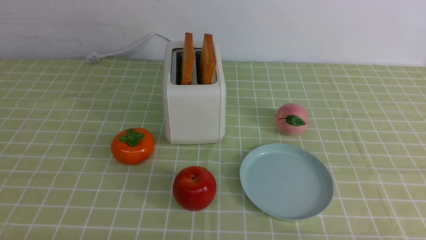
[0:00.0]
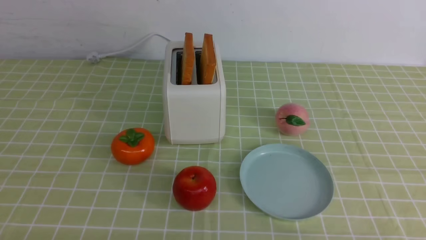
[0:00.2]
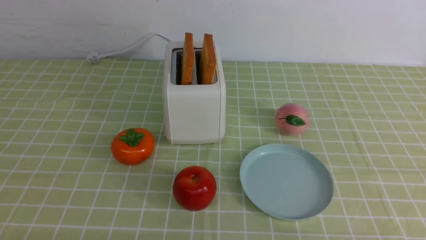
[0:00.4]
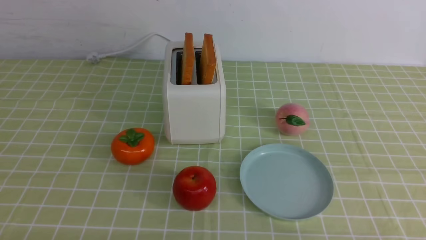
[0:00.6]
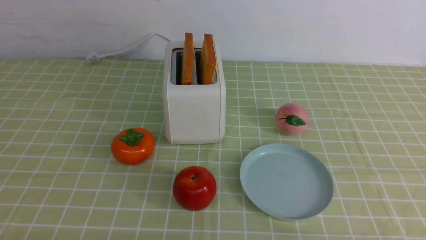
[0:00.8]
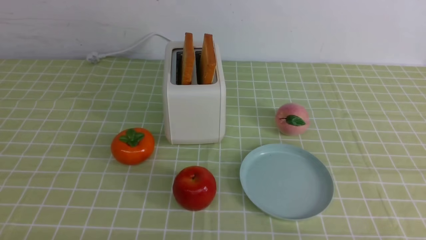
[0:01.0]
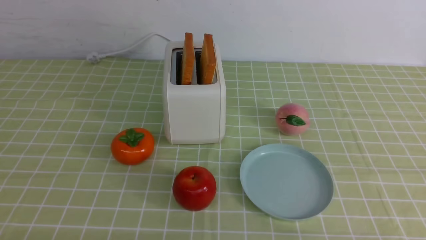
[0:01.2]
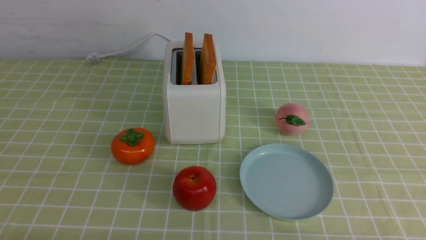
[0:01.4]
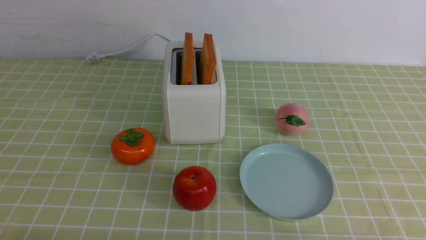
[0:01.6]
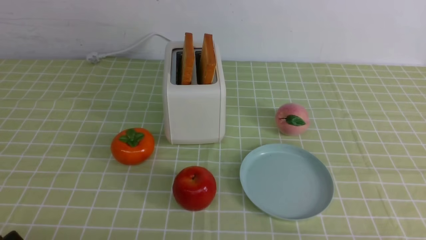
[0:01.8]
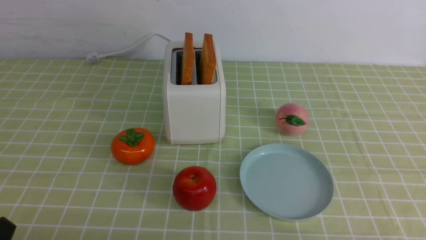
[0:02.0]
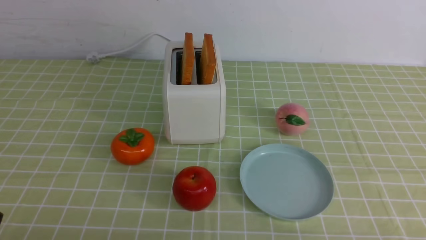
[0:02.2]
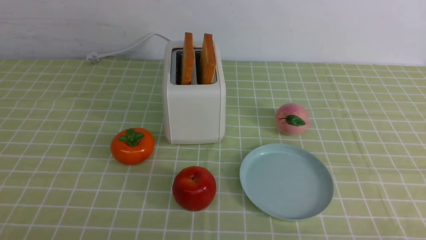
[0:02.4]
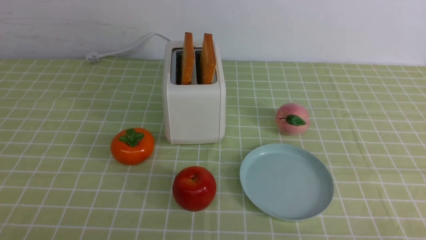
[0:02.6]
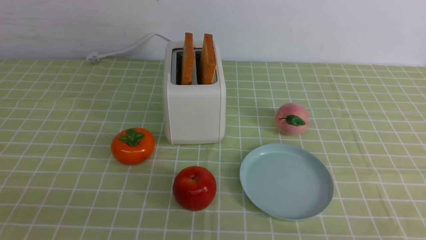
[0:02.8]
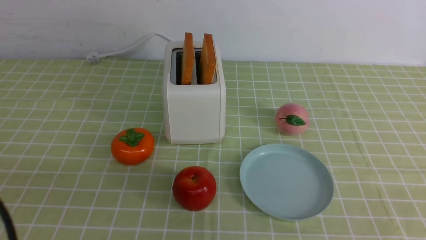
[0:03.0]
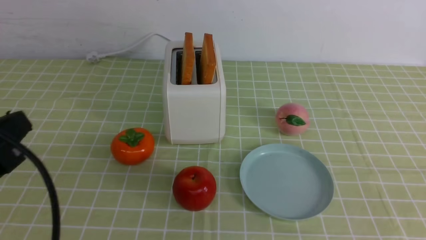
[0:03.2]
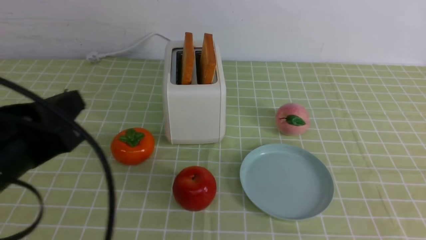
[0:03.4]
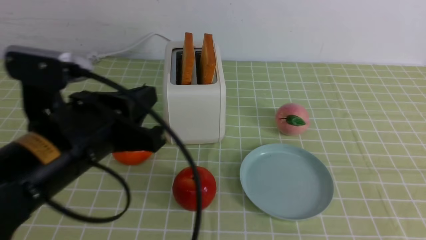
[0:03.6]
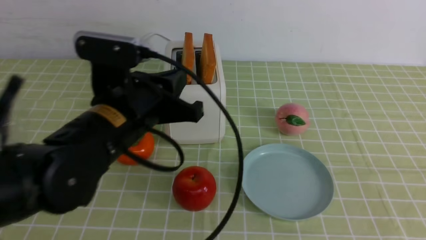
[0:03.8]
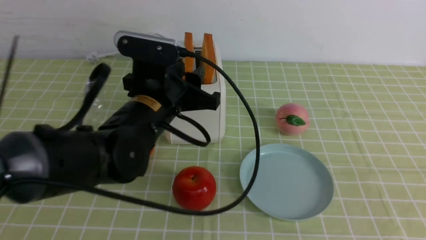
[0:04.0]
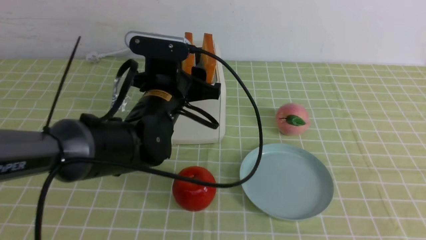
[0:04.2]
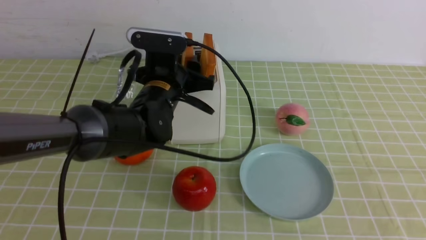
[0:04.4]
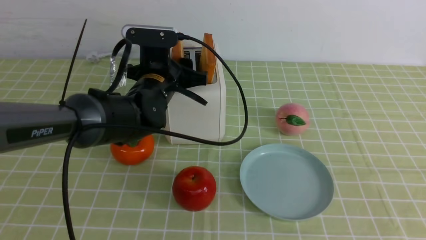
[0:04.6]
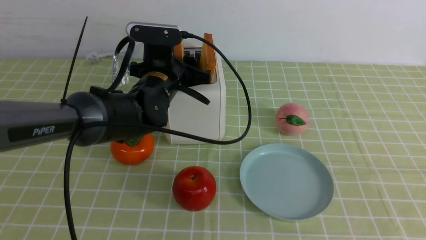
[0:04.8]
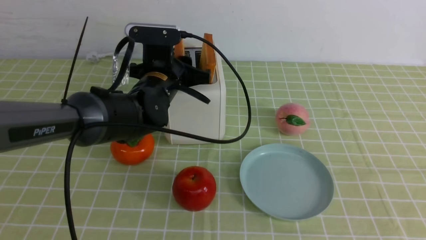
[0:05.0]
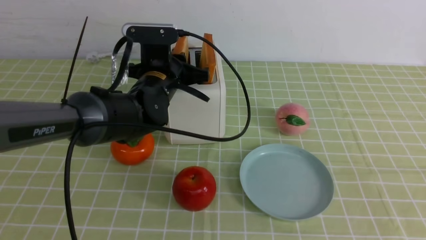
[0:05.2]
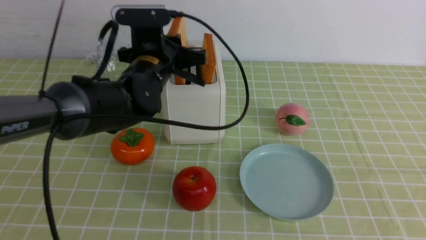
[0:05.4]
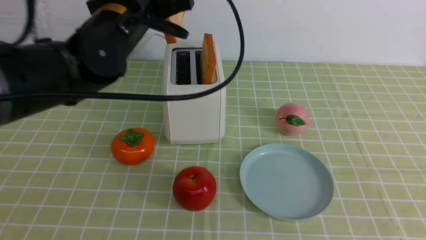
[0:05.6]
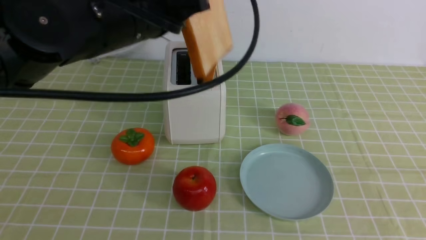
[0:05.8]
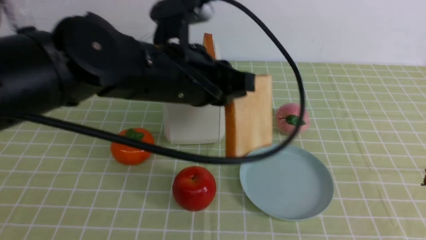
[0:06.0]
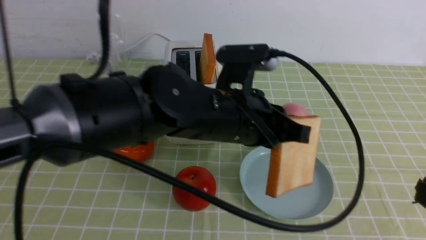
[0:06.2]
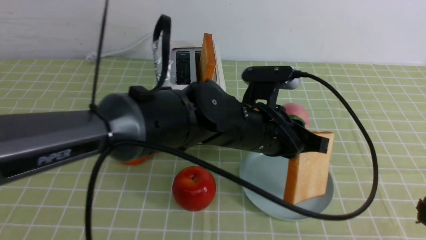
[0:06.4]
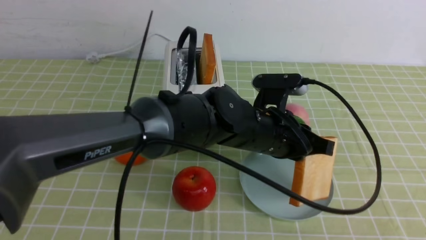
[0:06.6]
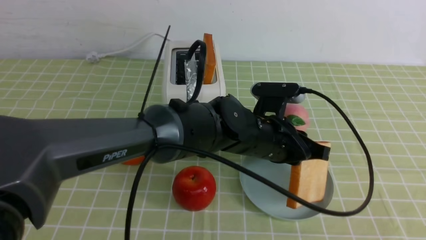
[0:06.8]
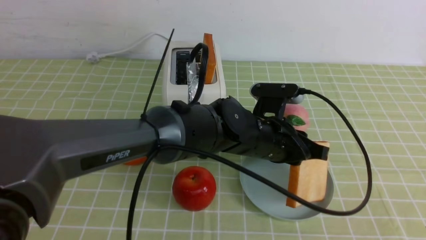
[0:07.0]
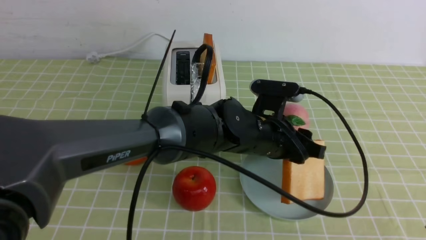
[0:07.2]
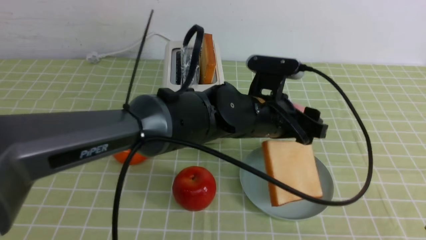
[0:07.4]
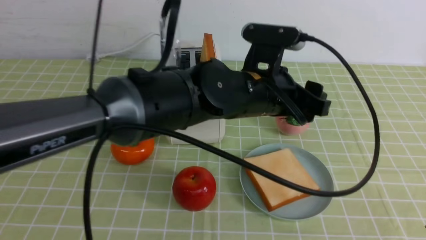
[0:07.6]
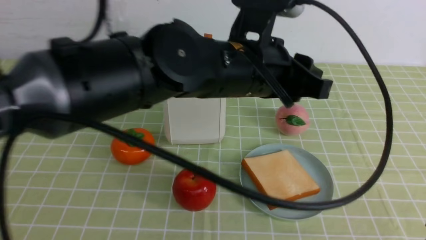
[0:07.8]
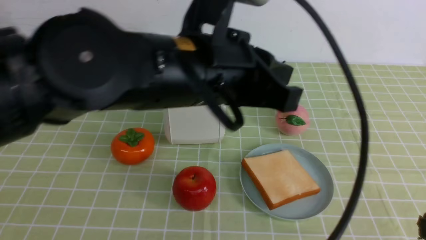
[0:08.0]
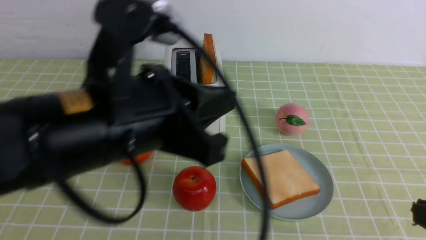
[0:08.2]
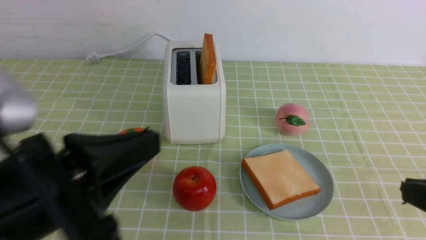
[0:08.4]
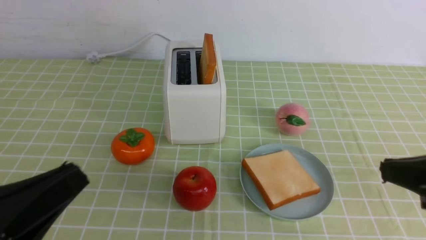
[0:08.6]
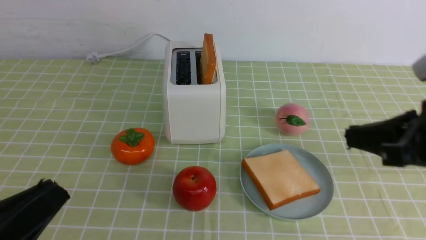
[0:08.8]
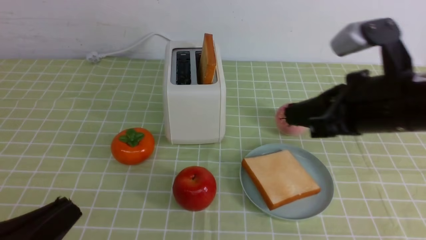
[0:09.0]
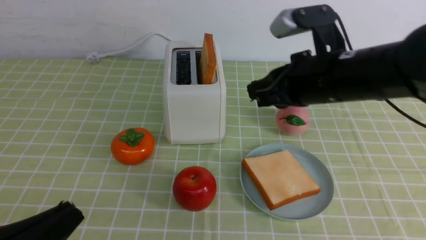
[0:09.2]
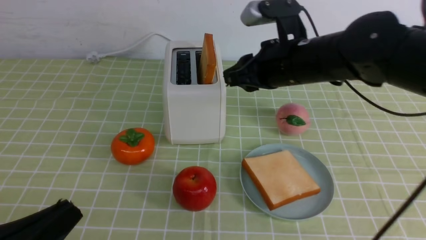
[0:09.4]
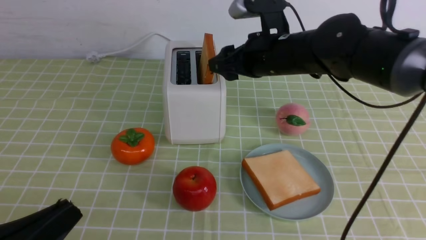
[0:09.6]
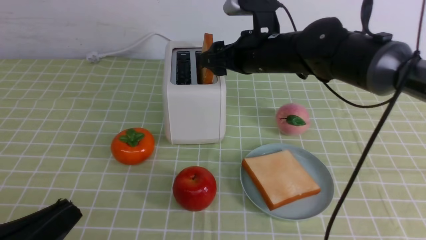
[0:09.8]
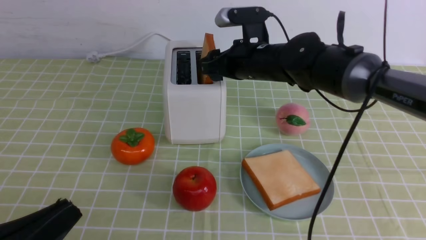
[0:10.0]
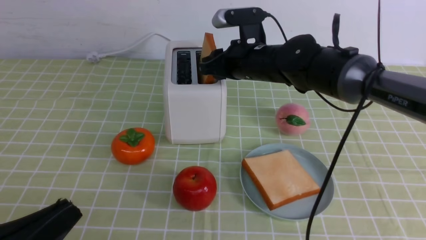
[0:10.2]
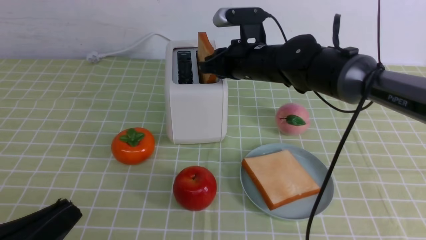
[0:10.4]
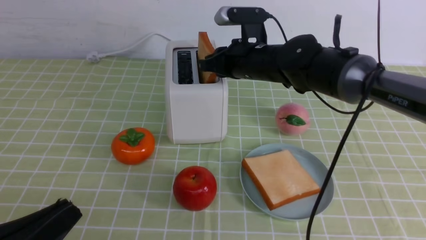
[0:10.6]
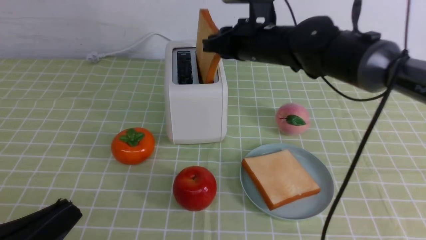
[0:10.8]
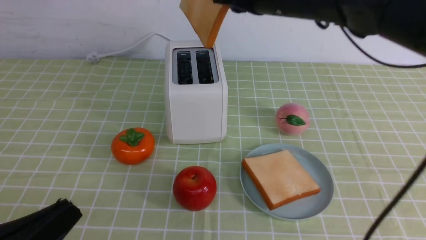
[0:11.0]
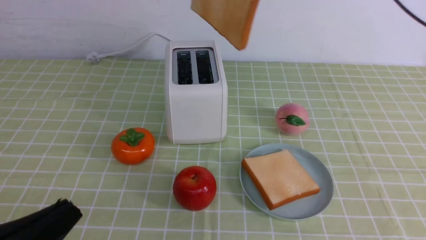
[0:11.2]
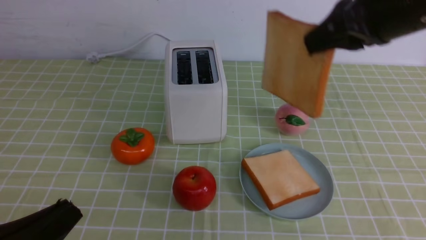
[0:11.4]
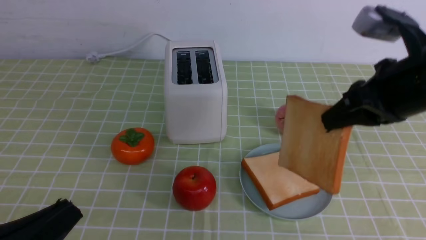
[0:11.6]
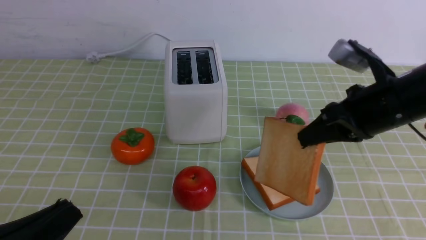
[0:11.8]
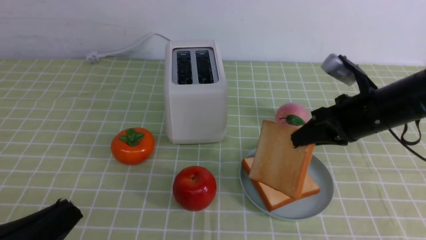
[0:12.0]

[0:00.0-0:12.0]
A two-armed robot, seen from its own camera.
Task of the whole recording: take toasted bread from bread machine on green coffee tablecloth place on plate.
Step, 0:00.0 to 0:05.6: use the left arm to take out a slice of bread.
Step, 0:05.8 to 0:08.0: use the left arm to put a slice of bread into the empty plate.
Step, 0:08.2 to 0:11.0: use the right arm to take out a slice of bread.
0:03.0 to 0:04.4: The left gripper shifts some 35 cm forward and to the right, and opens. Meanwhile the right gripper is displaced upward by about 5 cm.
0:04.4 to 0:06.0: The left gripper is displaced upward and backward by approximately 10 cm, and closes.
0:06.0 to 0:07.6: The left gripper travels to the right and downward by about 15 cm, and opens up.
0:07.6 to 0:09.0: The left gripper heads to the left and backward, covering approximately 35 cm, and closes, while the right gripper travels forward by about 20 cm.
0:09.0 to 0:10.4: The right gripper travels forward and to the left by some 25 cm, and opens.
0:10.4 to 0:12.0: The right gripper goes some 20 cm to the right and backward, and moves about 15 cm upward and comes back.

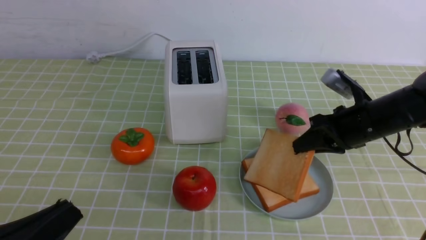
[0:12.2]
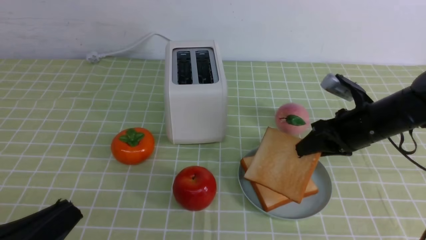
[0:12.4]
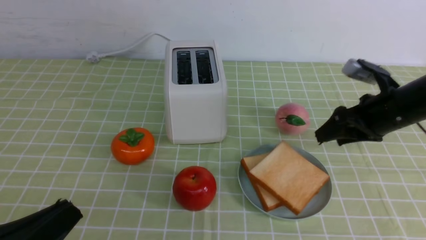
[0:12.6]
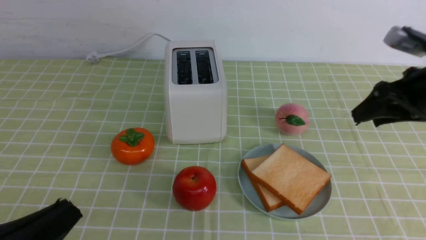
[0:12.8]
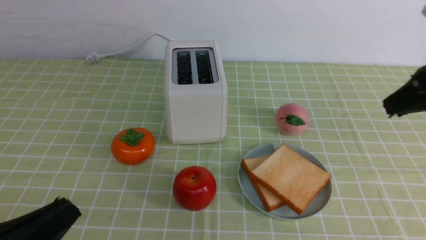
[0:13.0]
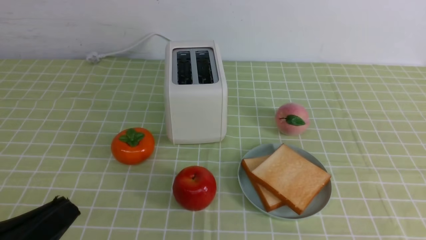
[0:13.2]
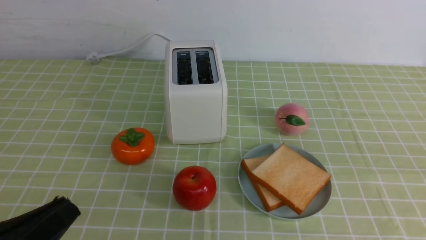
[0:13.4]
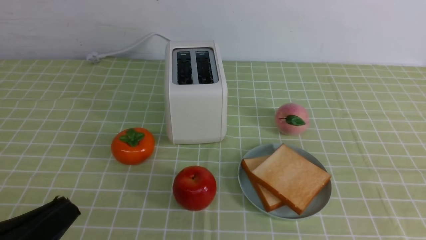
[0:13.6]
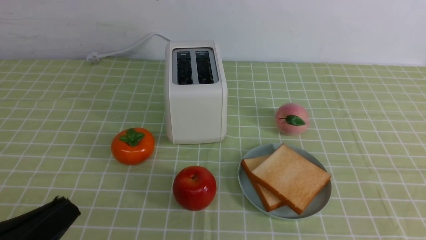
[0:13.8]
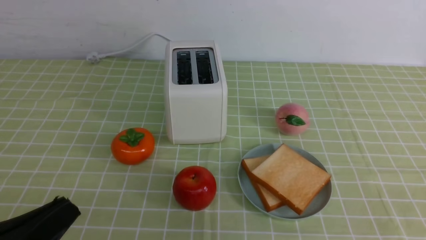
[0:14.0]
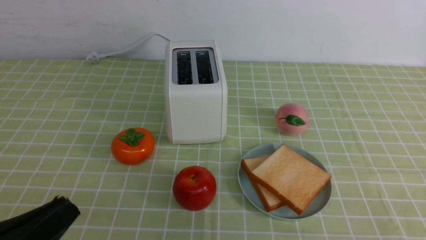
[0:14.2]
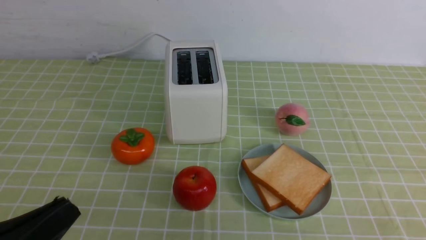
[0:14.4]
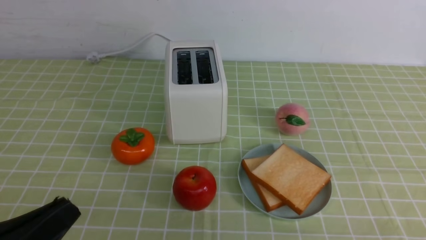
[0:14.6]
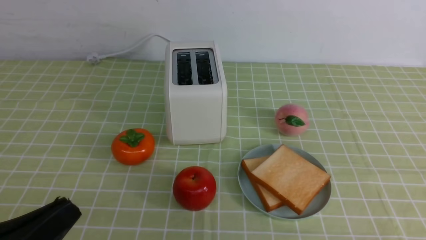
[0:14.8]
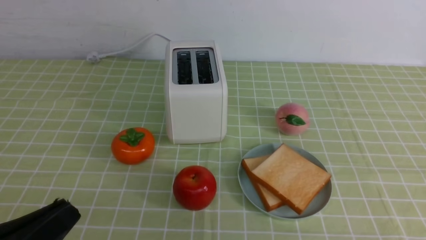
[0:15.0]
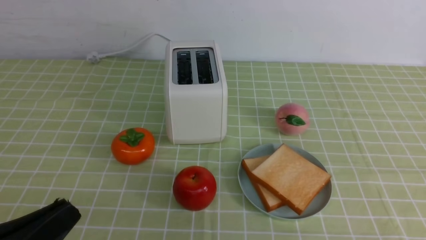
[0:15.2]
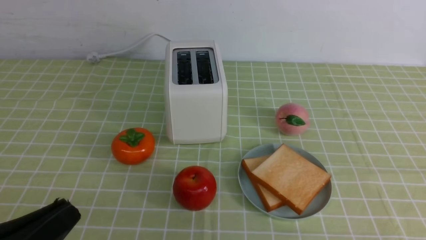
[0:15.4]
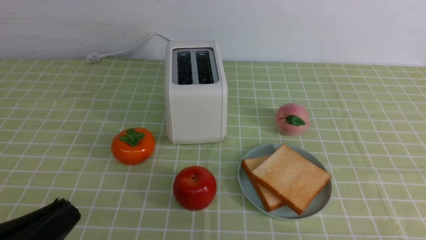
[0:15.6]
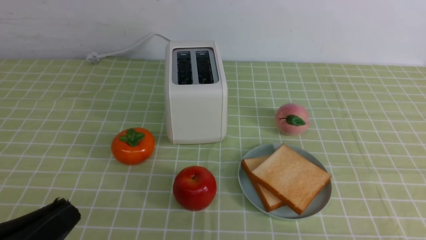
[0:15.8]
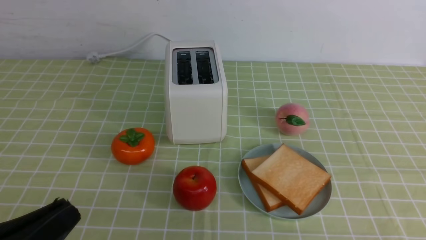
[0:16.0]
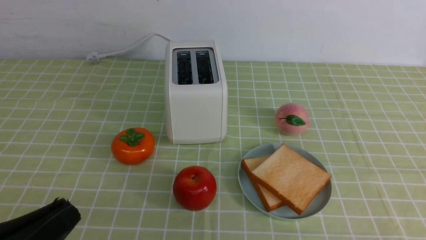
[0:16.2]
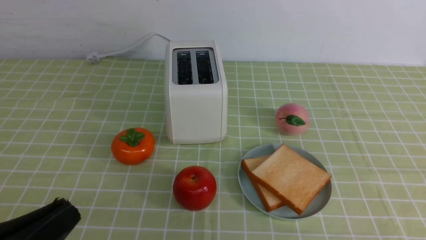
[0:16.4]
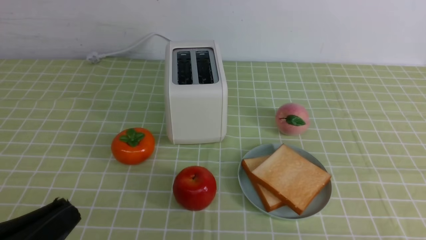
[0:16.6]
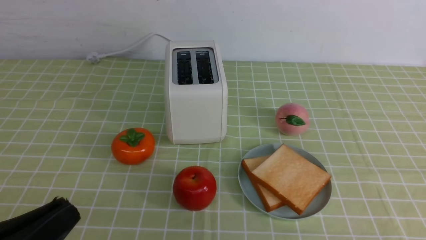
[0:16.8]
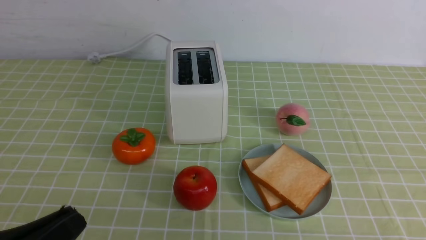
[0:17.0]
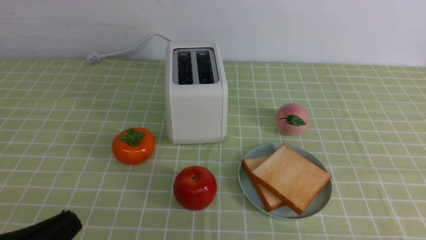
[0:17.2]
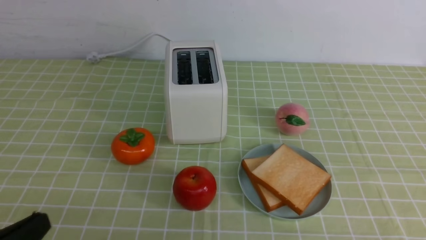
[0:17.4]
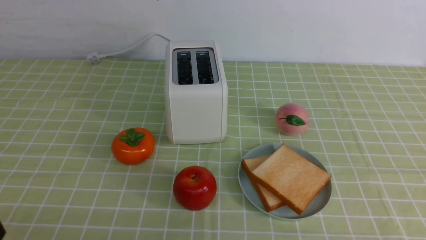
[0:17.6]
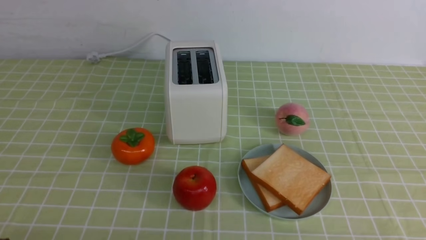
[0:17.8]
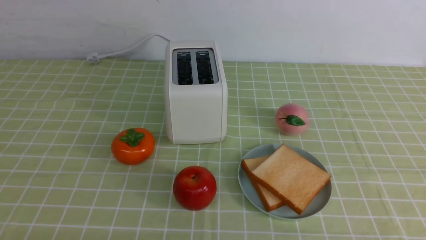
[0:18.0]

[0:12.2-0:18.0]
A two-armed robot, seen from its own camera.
Task of the whole recording: take toasted bread from bread machine on green coffee tablecloth place on plate.
0:12.2 to 0:13.6: The right gripper moves backward and upward, some 30 cm, and opens, then closes once more.
0:15.0 to 0:16.6: The two grippers keep their place.
0:16.6 to 0:18.0: The left gripper travels downward by about 5 cm.
